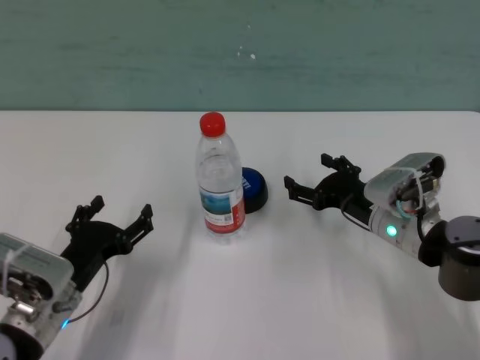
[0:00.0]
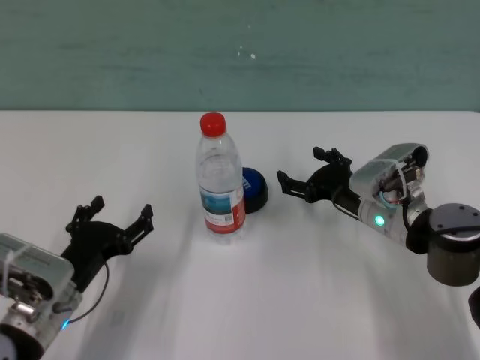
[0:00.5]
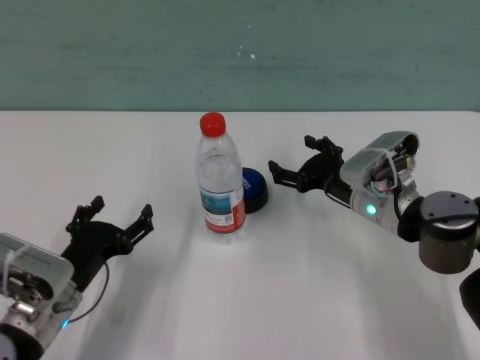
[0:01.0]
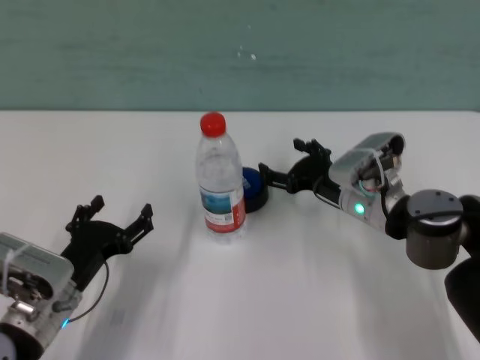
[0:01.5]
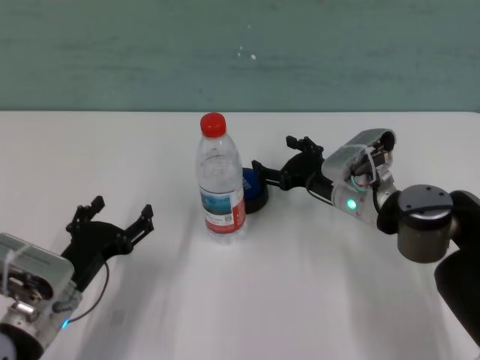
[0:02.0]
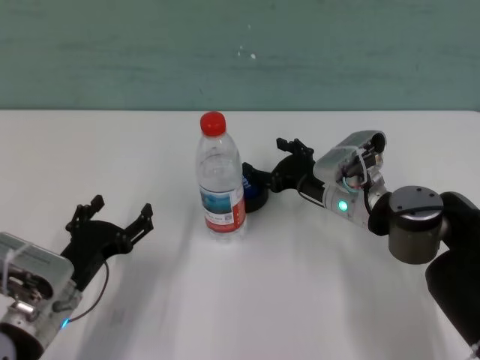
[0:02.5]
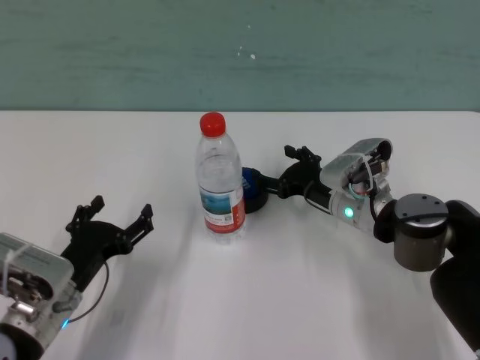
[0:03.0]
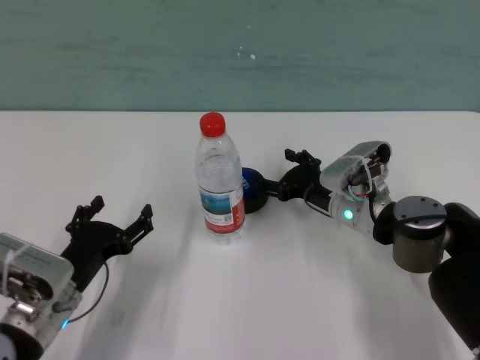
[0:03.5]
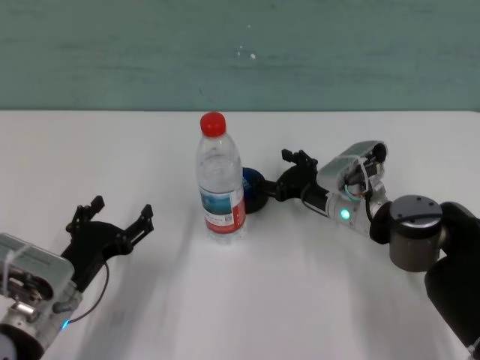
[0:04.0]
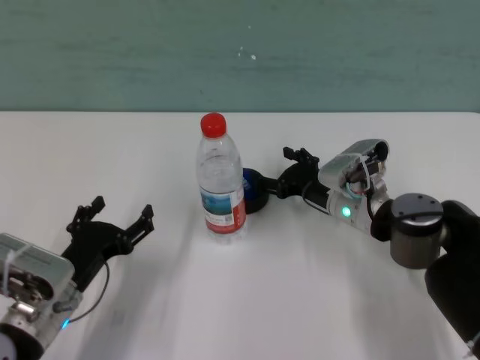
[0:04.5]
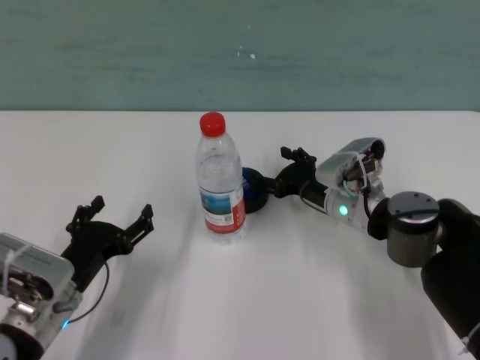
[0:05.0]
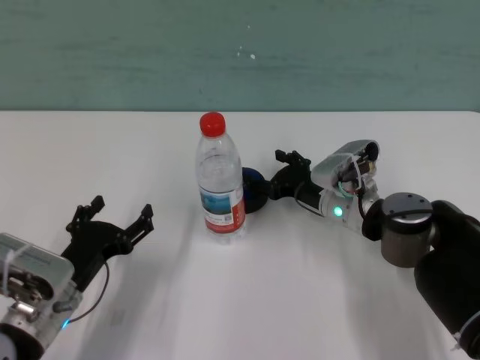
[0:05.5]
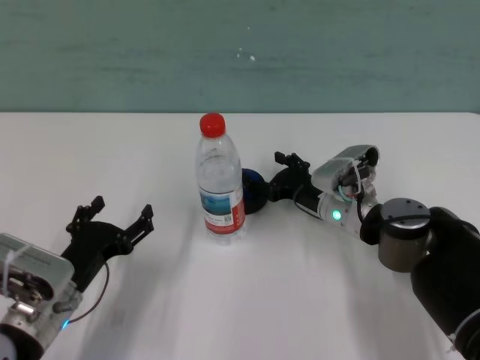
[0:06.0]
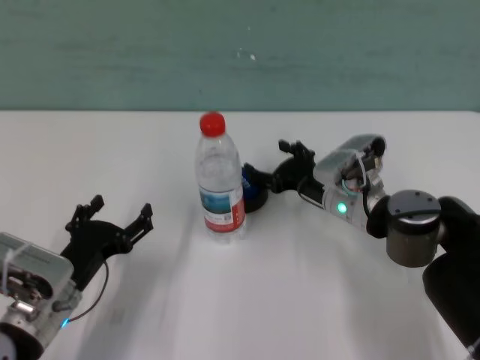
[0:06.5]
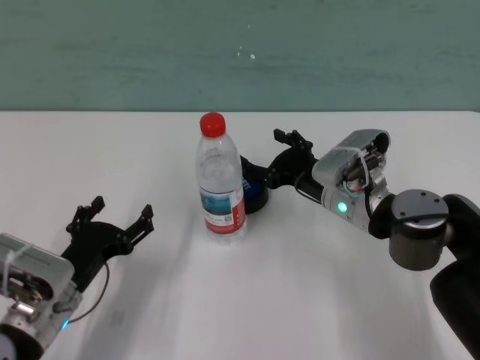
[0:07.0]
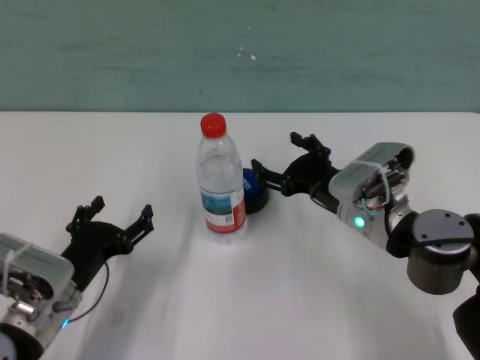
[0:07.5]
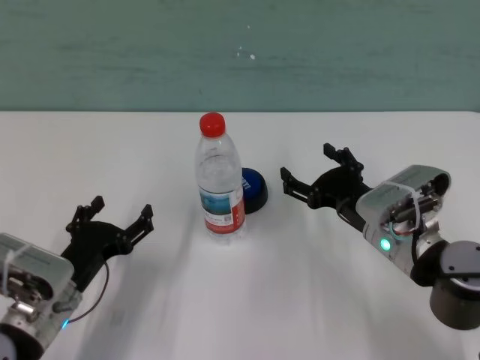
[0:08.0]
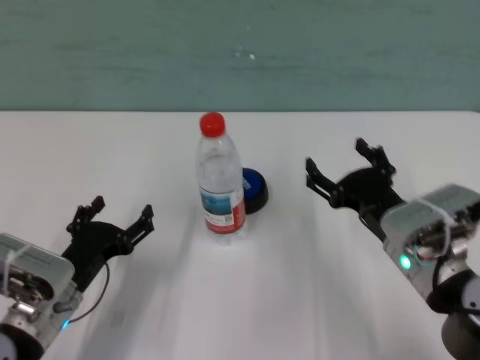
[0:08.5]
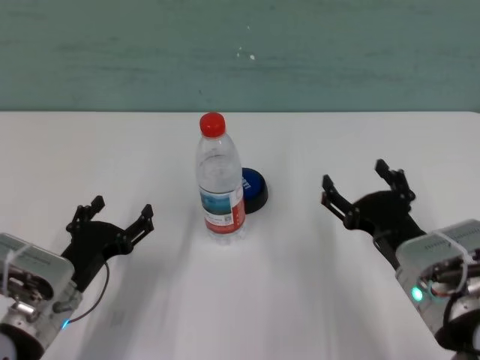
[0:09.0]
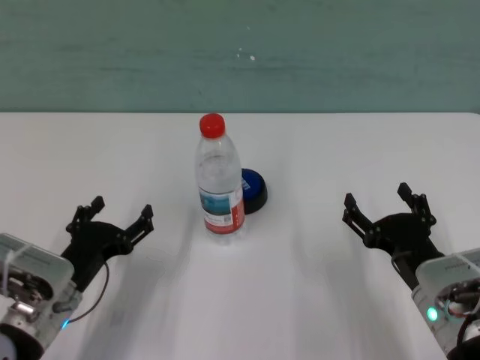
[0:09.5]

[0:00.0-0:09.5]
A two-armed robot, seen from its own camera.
Task of the whole recording: after avoiding the water bottle on the table, press the button.
Step, 0:00.0 to 0:06.5: Press the button blocked by the bottle with right gripper.
